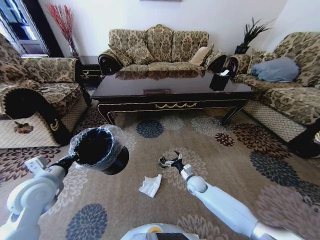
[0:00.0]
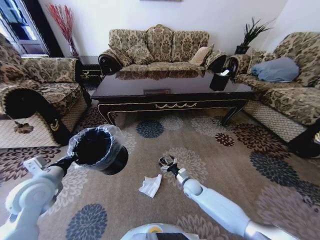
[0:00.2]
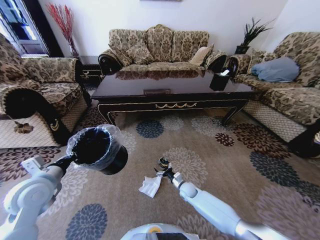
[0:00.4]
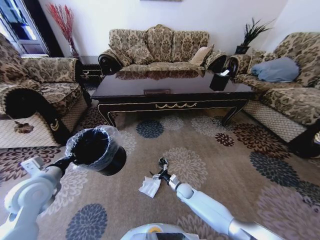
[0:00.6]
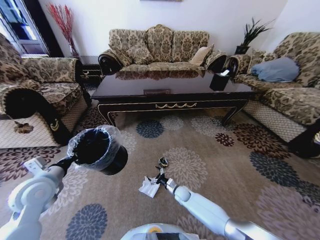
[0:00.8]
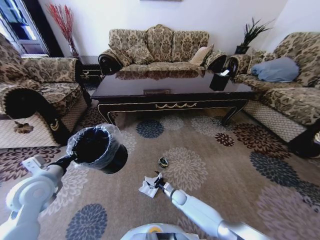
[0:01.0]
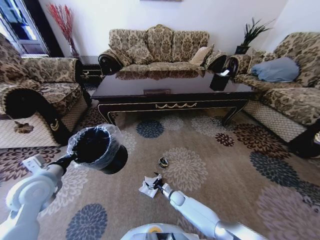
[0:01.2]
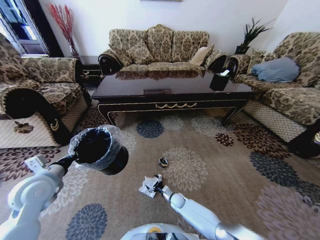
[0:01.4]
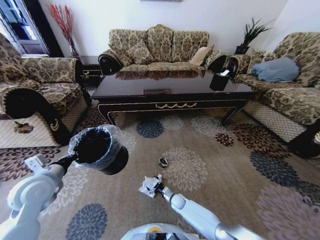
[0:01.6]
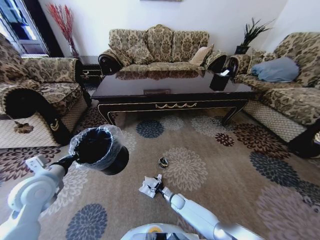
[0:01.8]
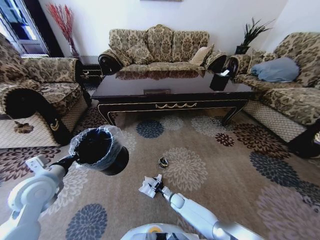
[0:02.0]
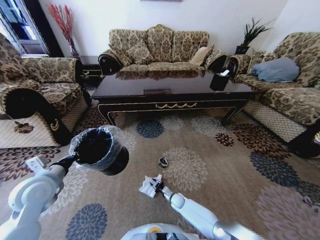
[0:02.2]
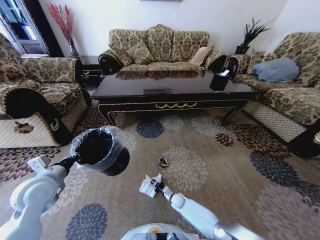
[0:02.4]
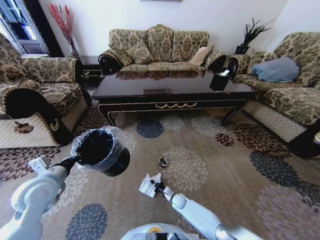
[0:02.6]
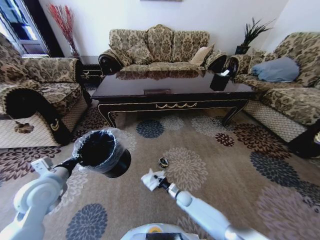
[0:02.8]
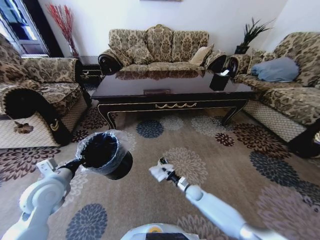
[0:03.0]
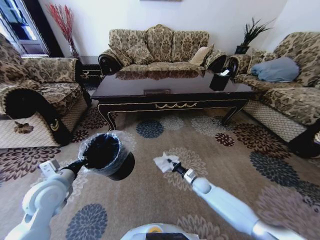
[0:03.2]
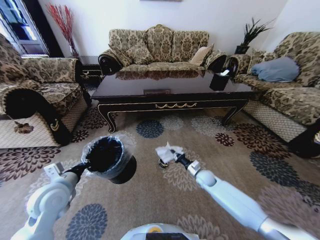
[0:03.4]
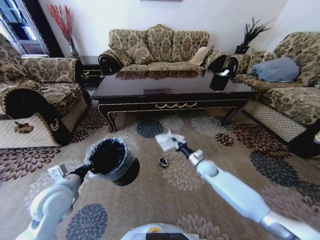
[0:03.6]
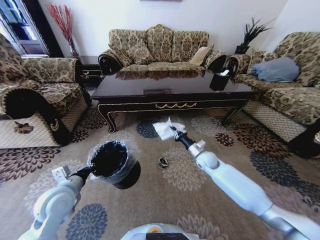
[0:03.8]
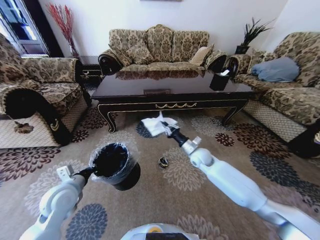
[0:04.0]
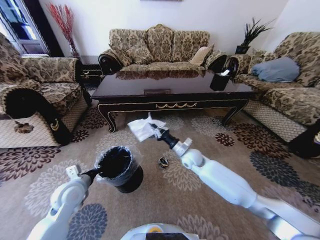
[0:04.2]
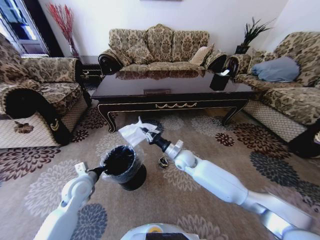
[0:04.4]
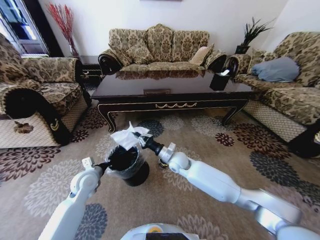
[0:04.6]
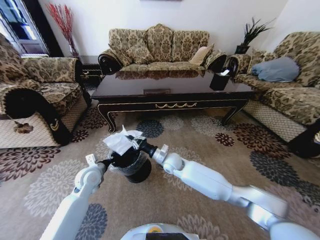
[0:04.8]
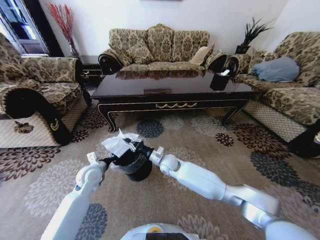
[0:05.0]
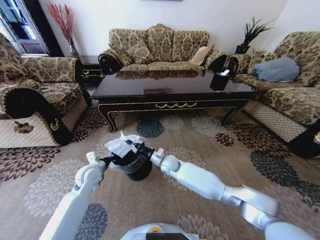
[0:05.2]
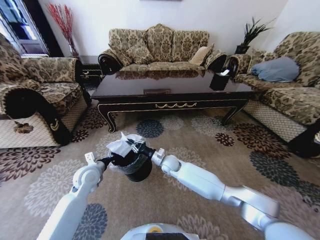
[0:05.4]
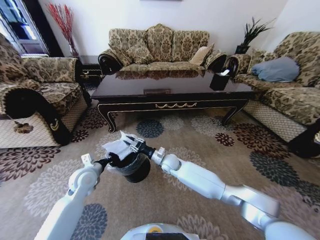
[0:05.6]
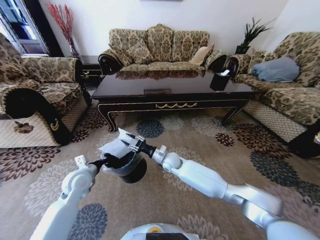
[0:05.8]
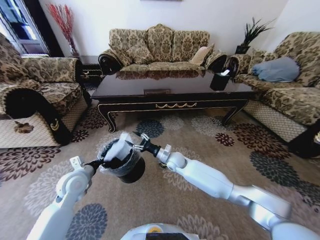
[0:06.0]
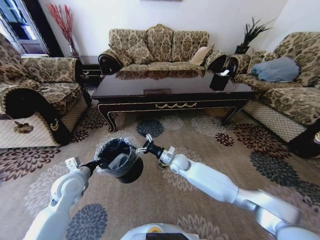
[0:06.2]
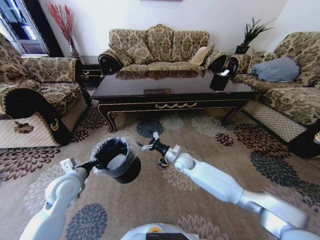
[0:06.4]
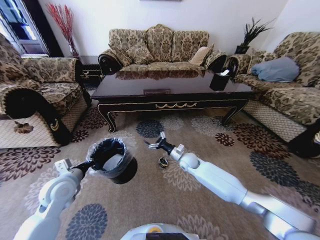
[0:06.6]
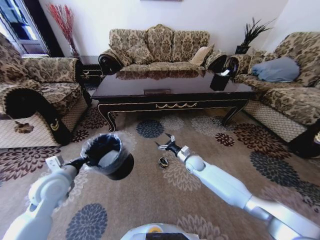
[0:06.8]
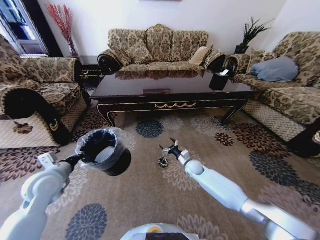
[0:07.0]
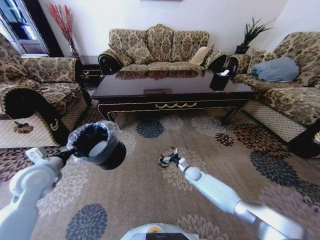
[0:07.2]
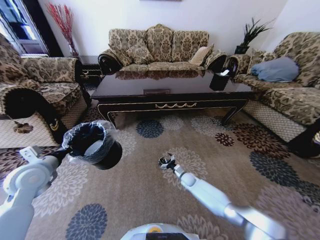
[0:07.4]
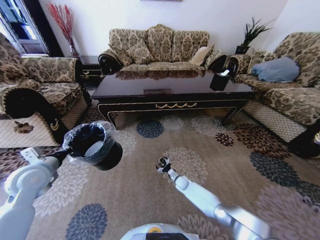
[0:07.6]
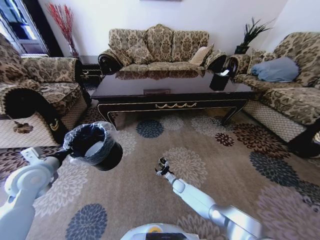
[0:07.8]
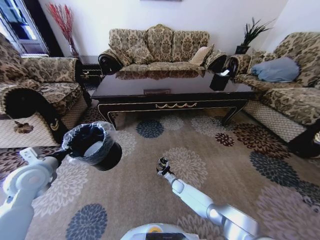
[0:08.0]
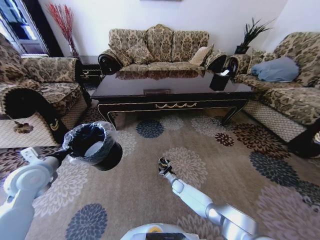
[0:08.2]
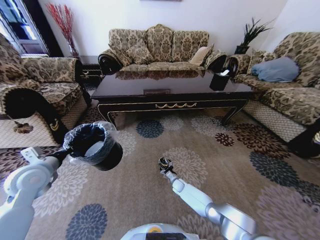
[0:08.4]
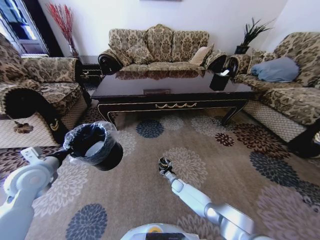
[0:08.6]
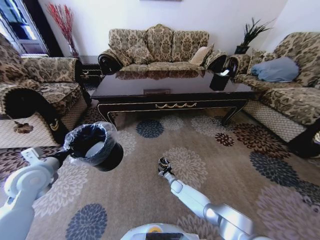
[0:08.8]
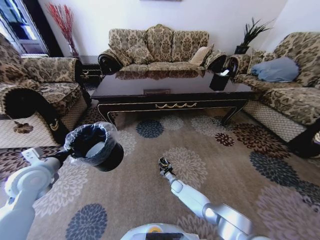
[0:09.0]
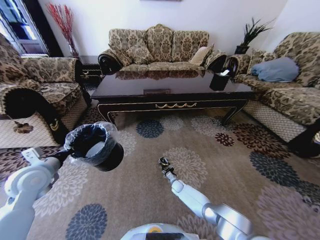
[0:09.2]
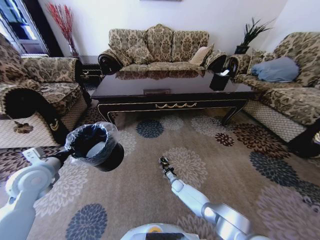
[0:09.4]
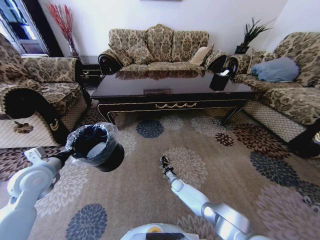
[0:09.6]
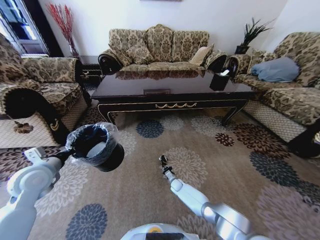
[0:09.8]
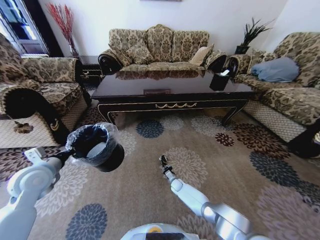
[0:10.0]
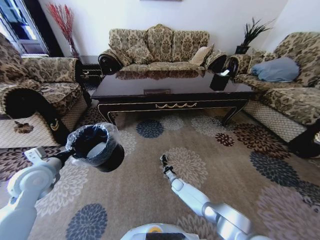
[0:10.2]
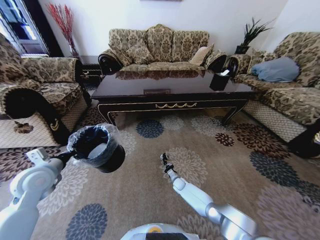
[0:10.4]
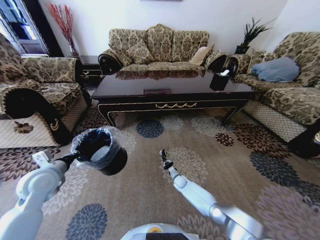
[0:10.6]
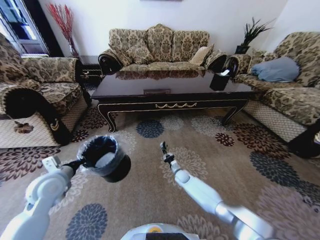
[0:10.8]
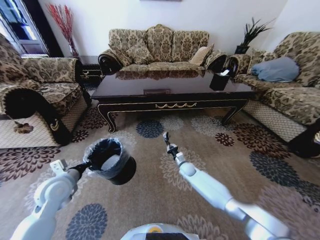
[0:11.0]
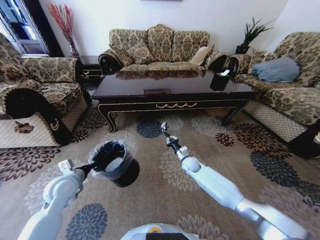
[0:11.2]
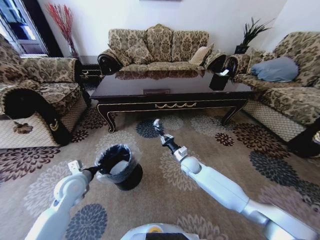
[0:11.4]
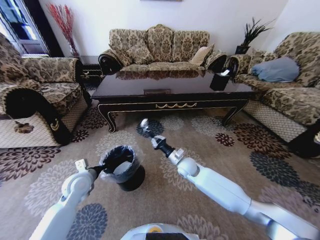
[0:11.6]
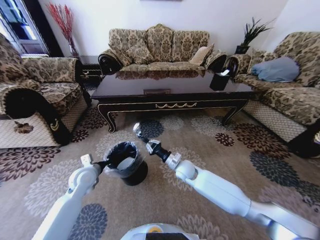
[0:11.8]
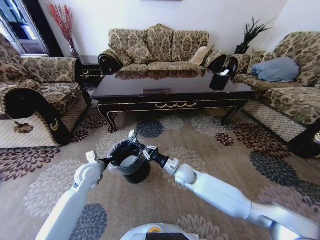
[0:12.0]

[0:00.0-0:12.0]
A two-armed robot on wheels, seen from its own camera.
Task of the whole recording: Move to the front of the table and pick up the trash from the floor, then place it into the trash bin.
0:00.0 to 0:01.6: The right gripper is displaced downward and to the left by about 20 cm.
0:01.6 to 0:03.0: The right gripper heads to the right and upward, covering roughly 10 cm, and closes up.
0:03.0 to 0:04.4: The right gripper goes about 25 cm upward; the left gripper travels downward by some 10 cm.
0:04.4 to 0:06.0: The right gripper opens.
0:06.0 to 0:07.6: The right gripper shifts some 25 cm downward; the left gripper travels to the left and upward by about 10 cm.
0:07.6 to 0:09.0: The right gripper shifts by about 5 cm.
0:09.0 to 0:10.4: The right gripper closes.
0:10.4 to 0:12.0: The left gripper is displaced to the right, downward and forward by approximately 15 cm. The right gripper is displaced upward by about 25 cm.

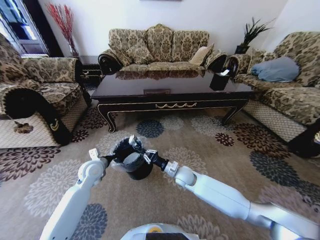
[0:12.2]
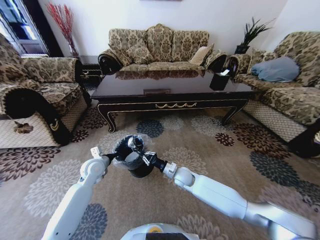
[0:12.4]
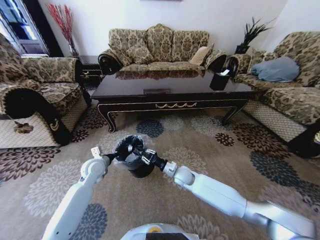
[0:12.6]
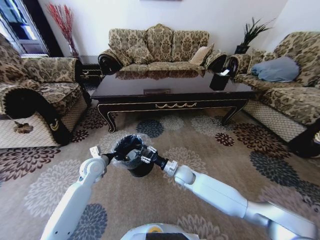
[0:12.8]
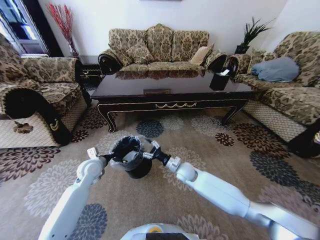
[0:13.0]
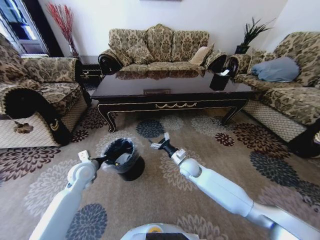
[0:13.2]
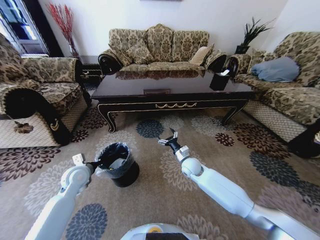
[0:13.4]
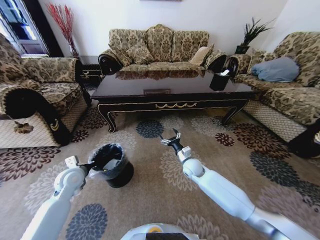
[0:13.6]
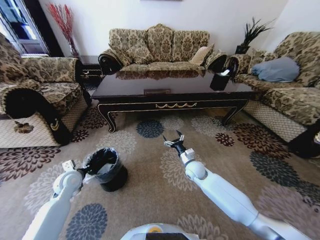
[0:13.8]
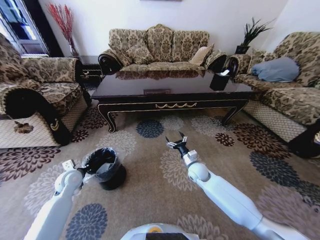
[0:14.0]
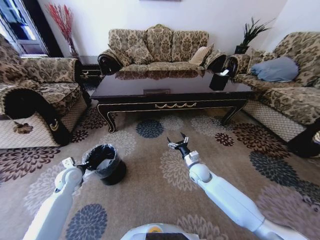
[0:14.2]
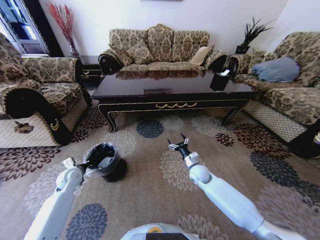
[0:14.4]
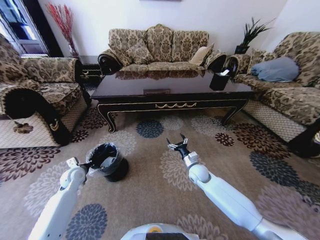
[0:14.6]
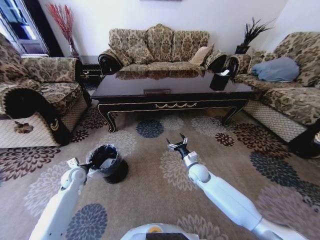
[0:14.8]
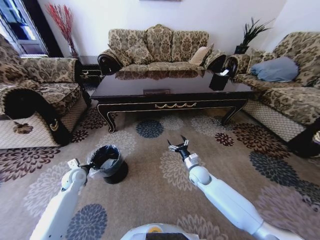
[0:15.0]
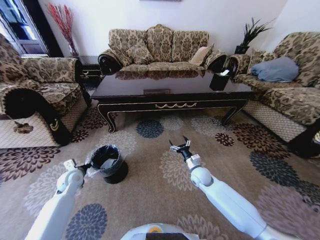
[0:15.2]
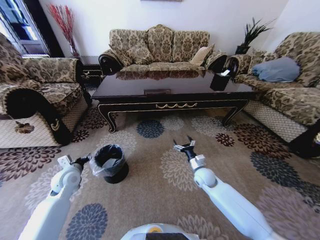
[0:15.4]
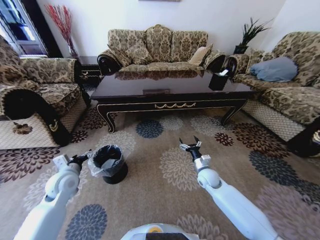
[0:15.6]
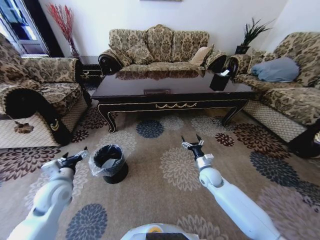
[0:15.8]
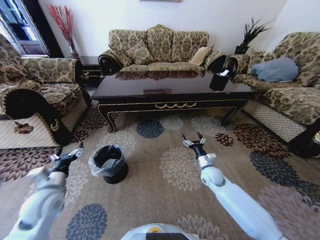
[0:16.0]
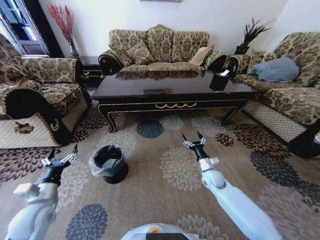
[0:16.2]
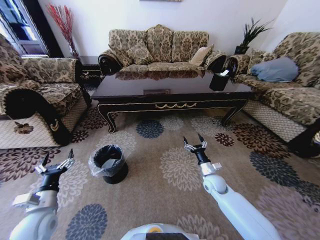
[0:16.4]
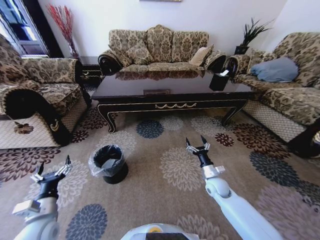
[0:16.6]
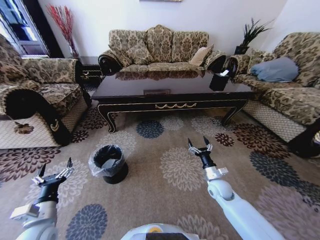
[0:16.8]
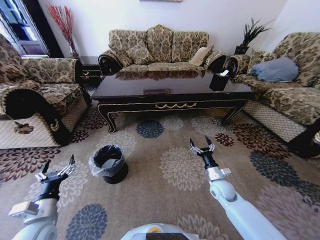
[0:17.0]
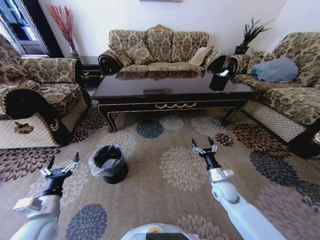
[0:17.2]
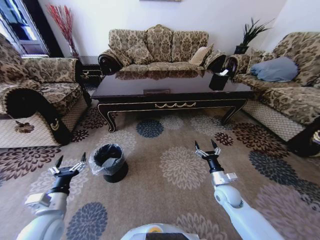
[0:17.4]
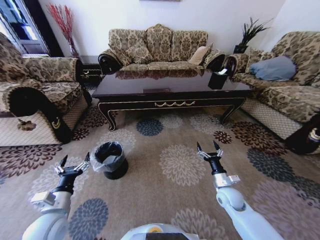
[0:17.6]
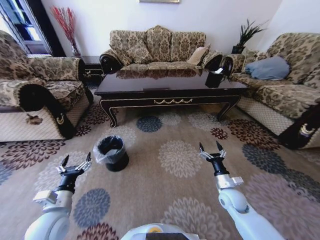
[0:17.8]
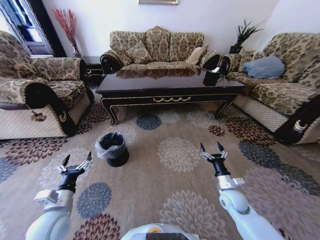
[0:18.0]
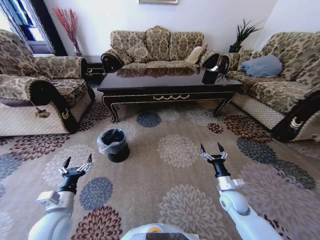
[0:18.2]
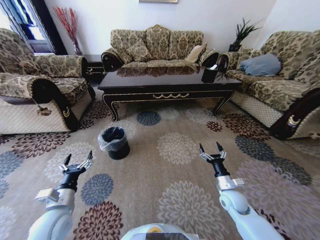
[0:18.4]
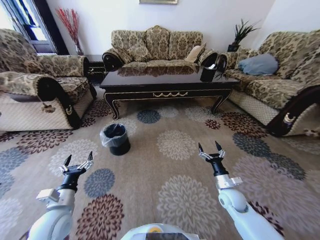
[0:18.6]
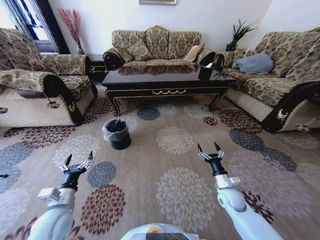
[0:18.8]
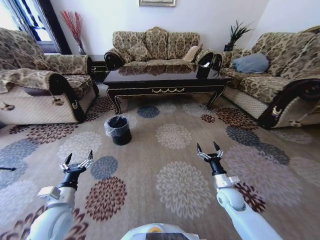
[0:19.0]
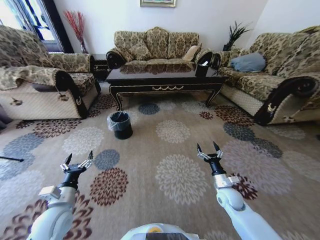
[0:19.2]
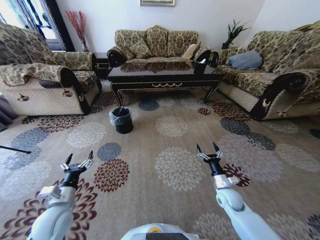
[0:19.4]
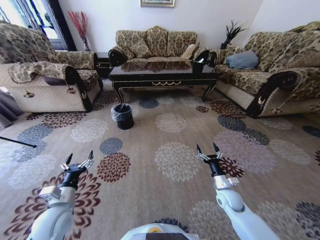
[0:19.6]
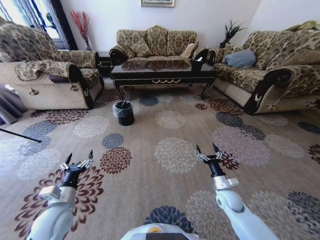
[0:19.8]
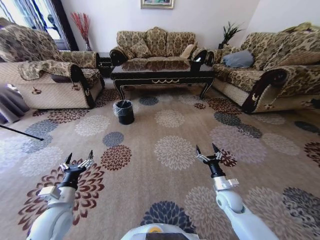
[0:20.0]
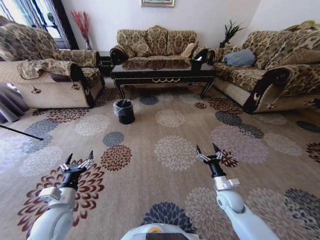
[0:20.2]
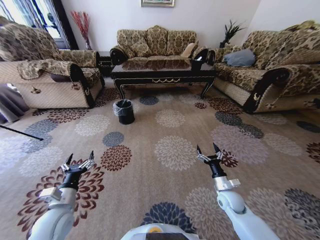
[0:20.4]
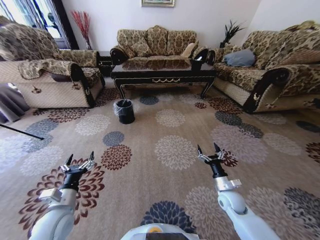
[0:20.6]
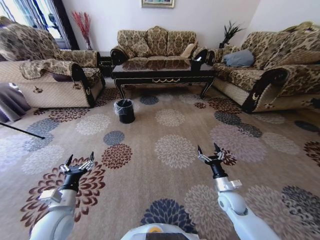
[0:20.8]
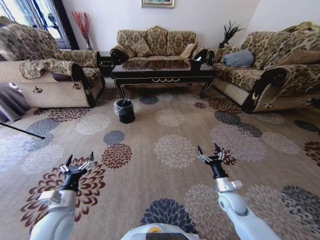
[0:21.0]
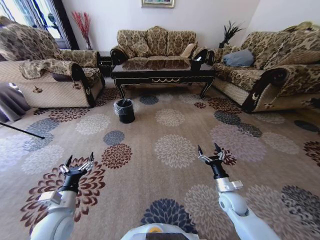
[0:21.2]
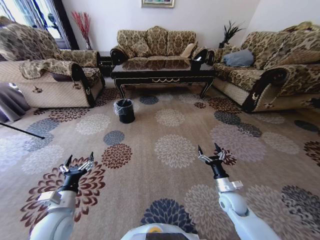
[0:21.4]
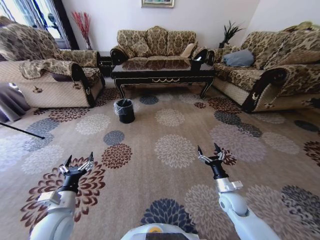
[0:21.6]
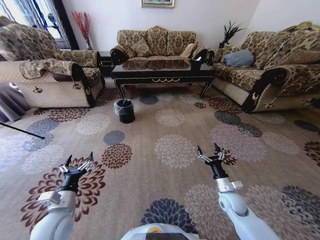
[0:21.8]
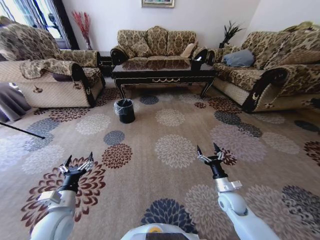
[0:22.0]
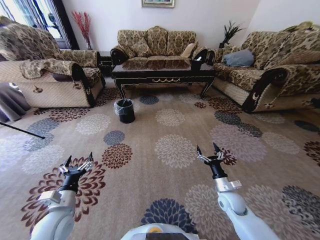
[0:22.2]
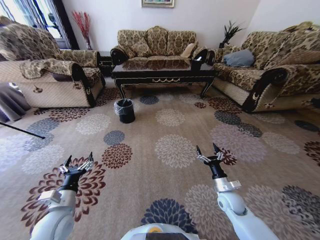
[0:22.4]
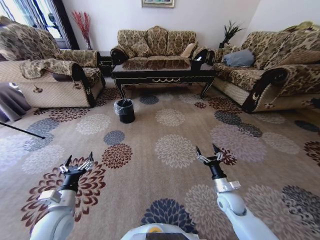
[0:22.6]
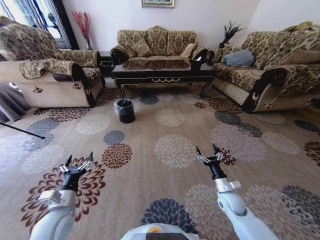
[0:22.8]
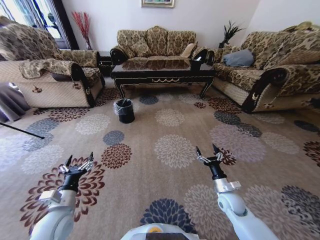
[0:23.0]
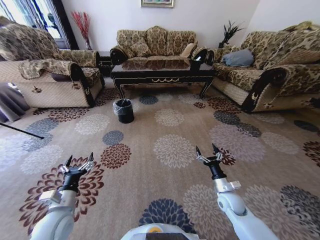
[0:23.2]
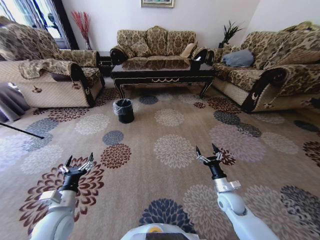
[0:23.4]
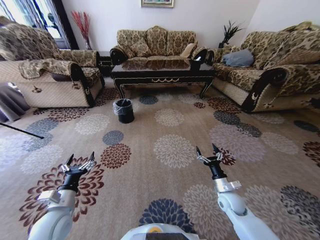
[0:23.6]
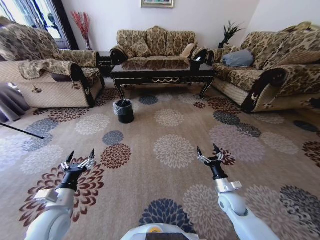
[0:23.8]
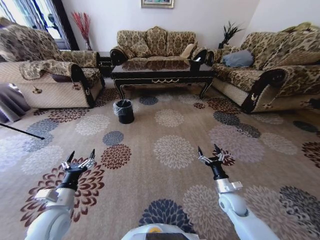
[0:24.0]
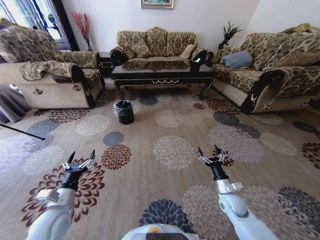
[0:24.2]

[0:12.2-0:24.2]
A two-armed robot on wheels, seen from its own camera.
Task of the whole recording: Move to the front of the table and pick up the trash from the floor, then place it into the trash bin.
0:12.2 to 0:13.8: The right gripper shifts roughly 5 cm to the right, and opens its fingers. Meanwhile the left gripper heads to the left, covering some 10 cm.
0:13.8 to 0:15.2: The left gripper opens.
0:15.2 to 0:16.6: The right gripper goes roughly 5 cm to the right. Meanwhile the left gripper is displaced backward by some 20 cm, and opens.
0:16.6 to 0:18.2: The right gripper is displaced backward by about 5 cm.
0:19.8 to 0:21.2: There are only small adjustments of the grippers.
0:21.2 to 0:22.6: Both grippers stay put.
0:22.6 to 0:24.2: The grippers move only a little.
